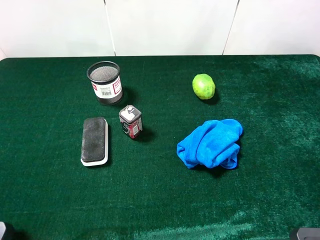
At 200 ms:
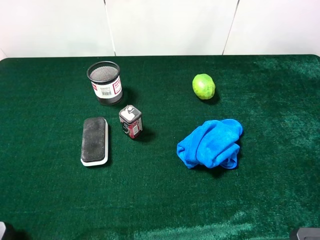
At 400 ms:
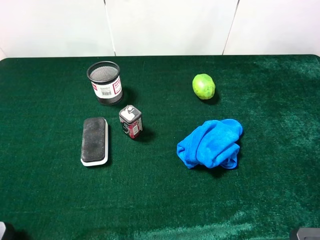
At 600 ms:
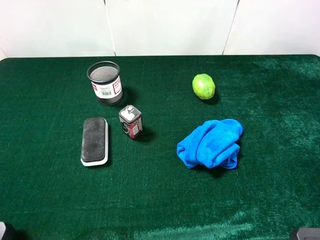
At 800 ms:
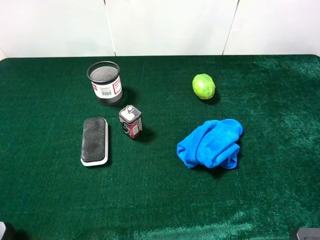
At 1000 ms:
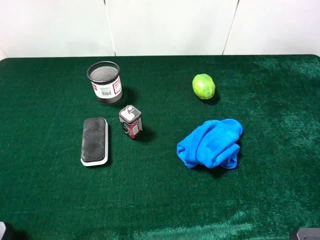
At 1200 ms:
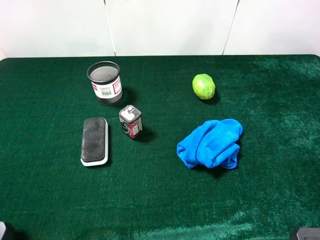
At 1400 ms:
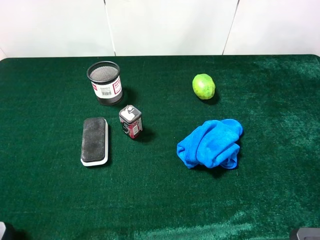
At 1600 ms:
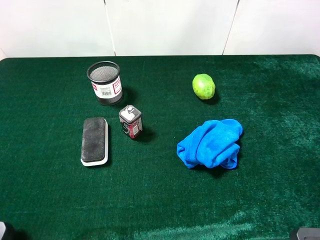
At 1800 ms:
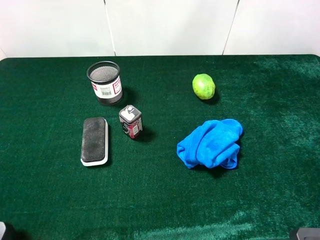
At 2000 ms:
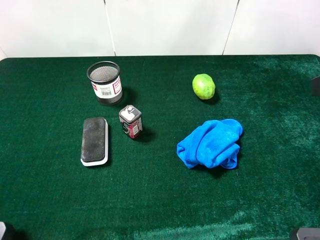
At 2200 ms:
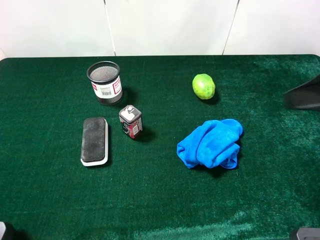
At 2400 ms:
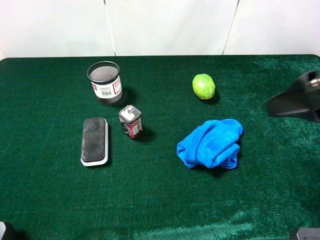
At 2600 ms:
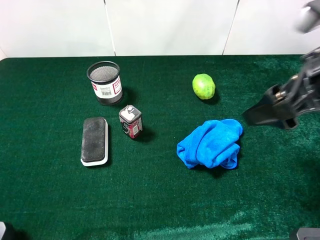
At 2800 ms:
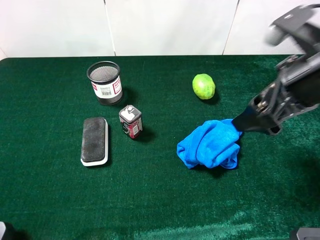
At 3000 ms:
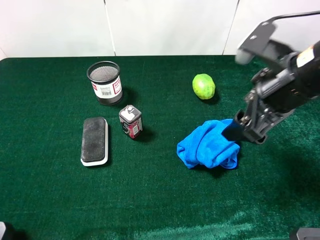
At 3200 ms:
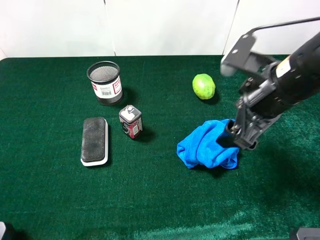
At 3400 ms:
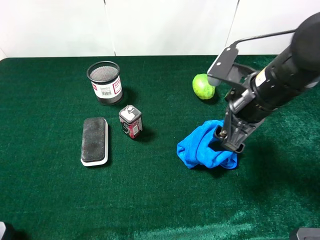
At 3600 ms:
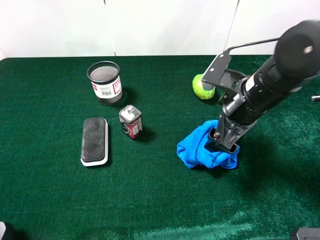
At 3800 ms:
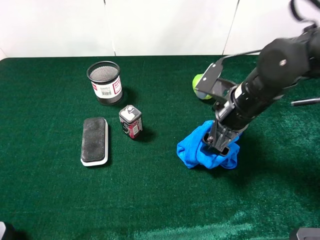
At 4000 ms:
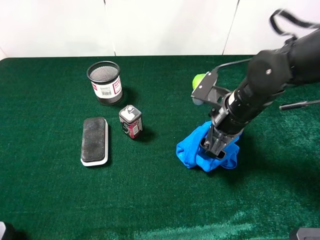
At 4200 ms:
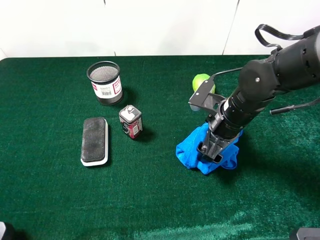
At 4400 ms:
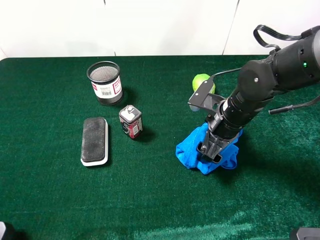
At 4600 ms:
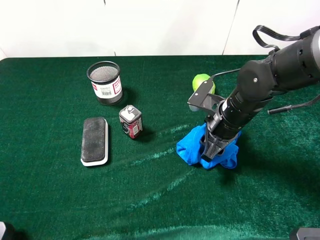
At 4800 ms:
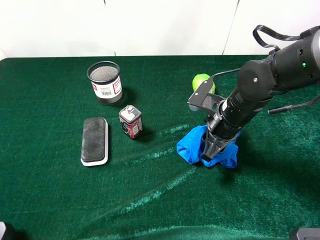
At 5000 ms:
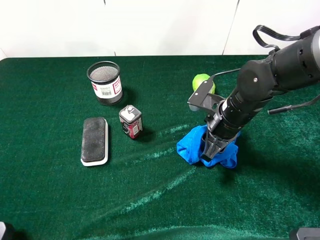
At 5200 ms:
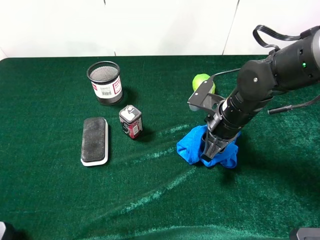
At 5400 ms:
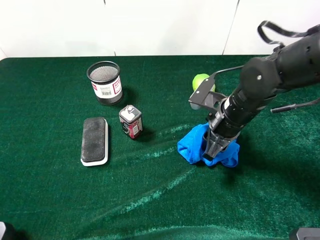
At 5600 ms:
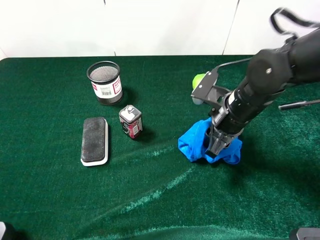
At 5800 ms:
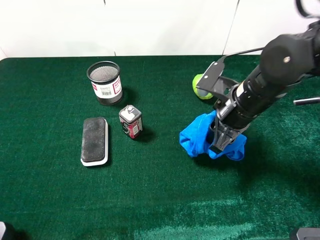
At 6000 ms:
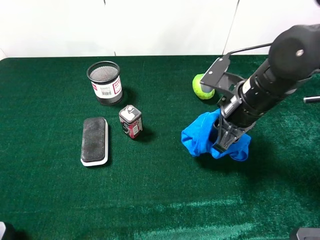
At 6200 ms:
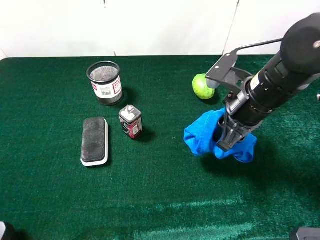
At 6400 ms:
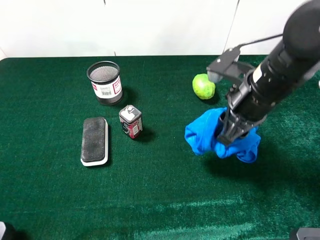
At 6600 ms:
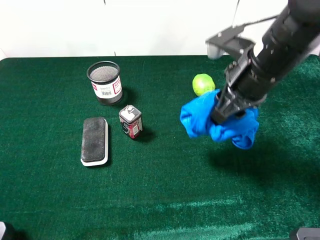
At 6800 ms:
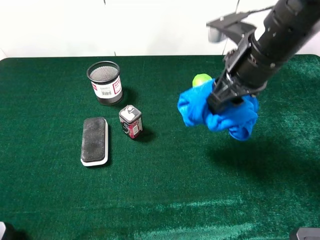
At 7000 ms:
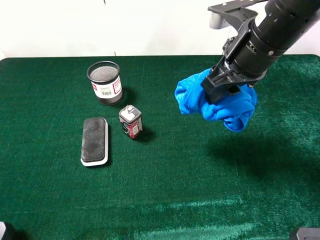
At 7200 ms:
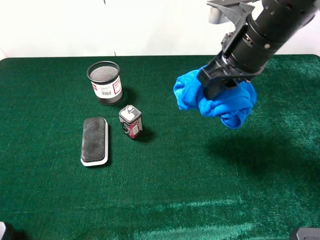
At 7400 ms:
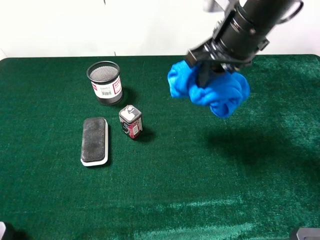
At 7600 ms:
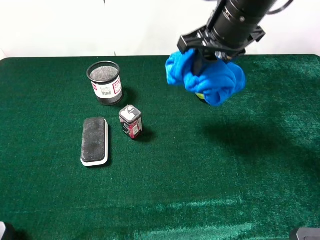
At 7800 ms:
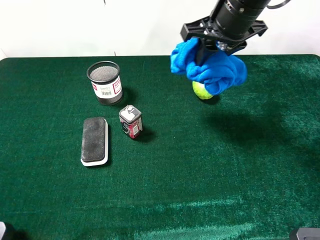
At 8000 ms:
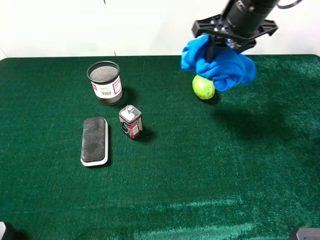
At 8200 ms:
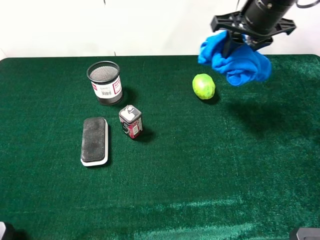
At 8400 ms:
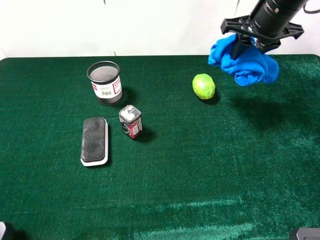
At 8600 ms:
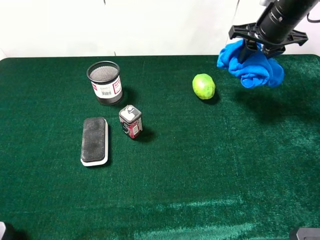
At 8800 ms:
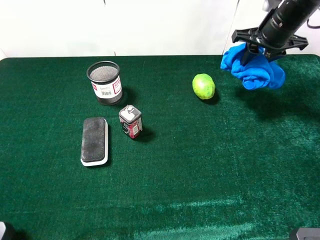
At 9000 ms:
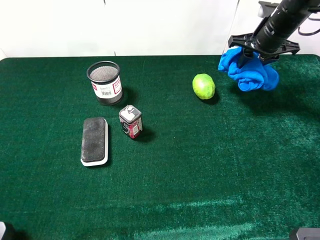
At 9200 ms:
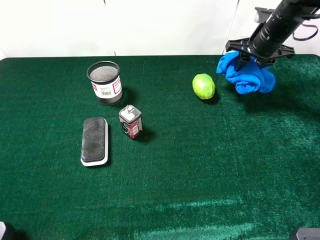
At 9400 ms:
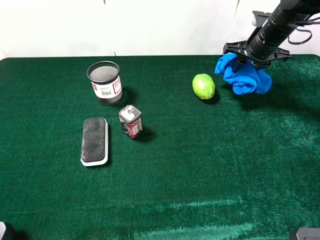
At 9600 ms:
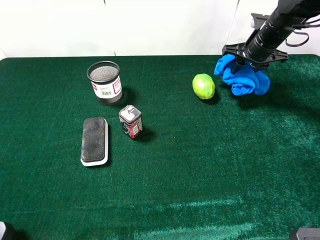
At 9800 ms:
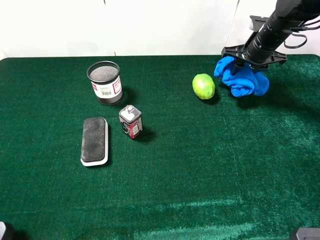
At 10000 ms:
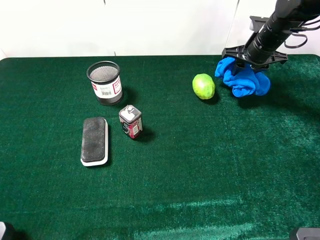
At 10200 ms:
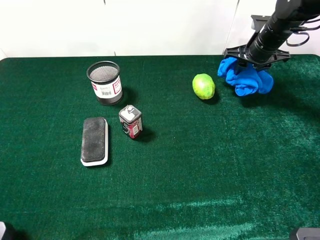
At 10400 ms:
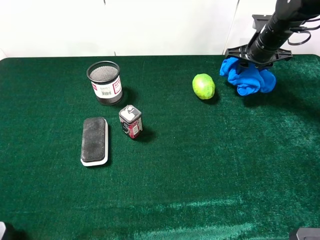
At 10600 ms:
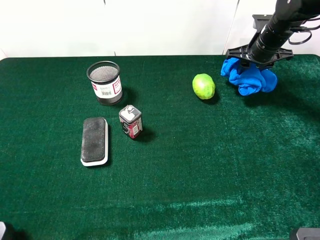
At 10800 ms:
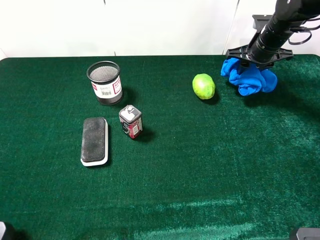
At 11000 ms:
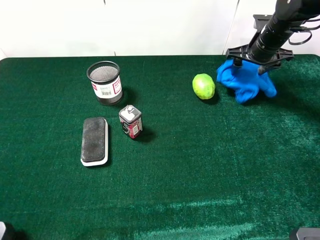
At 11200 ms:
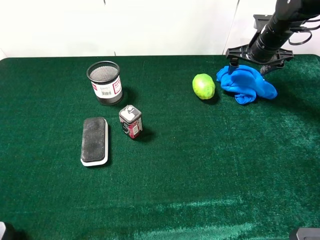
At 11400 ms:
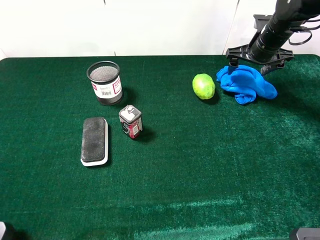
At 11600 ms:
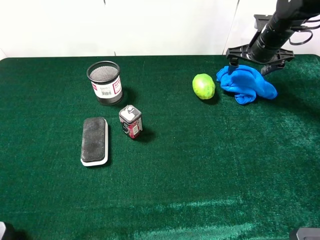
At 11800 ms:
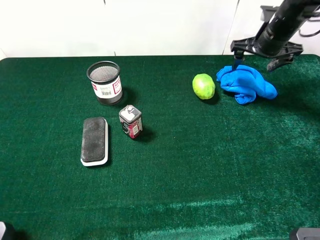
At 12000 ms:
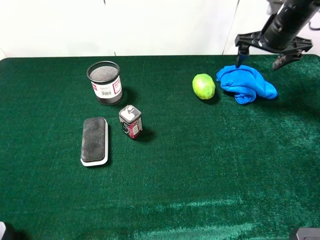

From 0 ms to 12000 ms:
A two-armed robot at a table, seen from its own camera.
Task of the whole recording: the gripper move the object.
Step, from 0 ms to 11800 ms: Place the blue towel on the table with the right gripper.
From 1600 ms to 3000 ms: The right gripper heads forward, to the left and downward, covering approximately 20 cm.
From 3000 ms to 4400 ms: The right gripper heads downward, covering some 15 cm.
From 4400 ms to 6000 ms: The right gripper heads upward, covering approximately 5 cm, and closes its fingers.
From 6000 ms to 7600 ms: The right gripper is displaced upward and forward by approximately 15 cm.
From 7600 ms to 9000 ms: The right gripper goes approximately 20 cm to the right, forward and downward.
From 9000 ms to 10400 ms: The grippers move only a little.
From 10400 ms to 12000 ms: The right gripper heads upward, covering roughly 5 cm, and opens.

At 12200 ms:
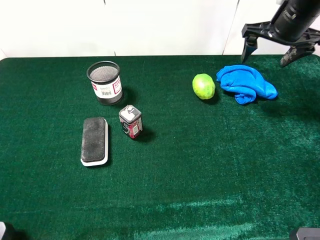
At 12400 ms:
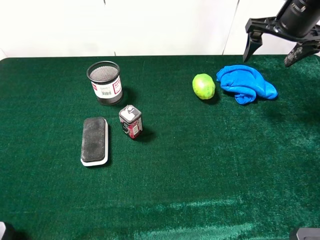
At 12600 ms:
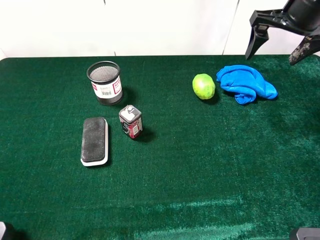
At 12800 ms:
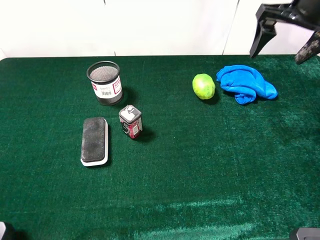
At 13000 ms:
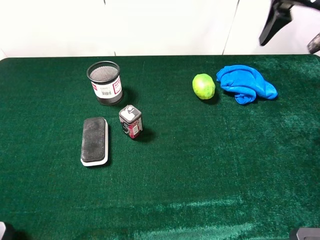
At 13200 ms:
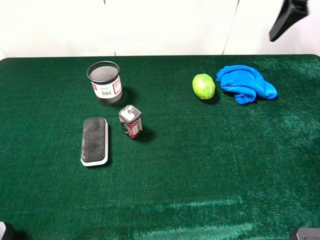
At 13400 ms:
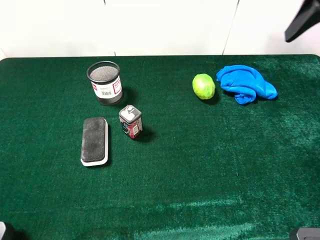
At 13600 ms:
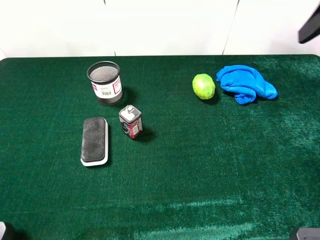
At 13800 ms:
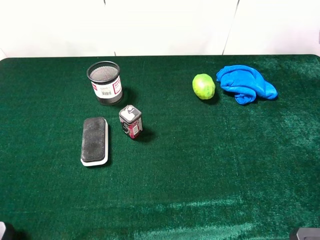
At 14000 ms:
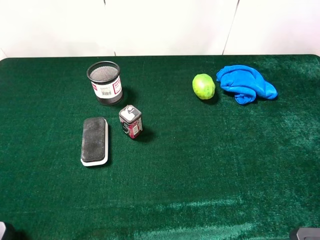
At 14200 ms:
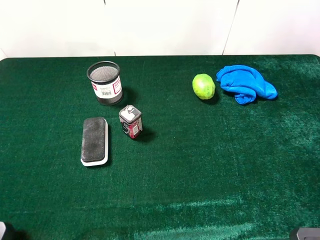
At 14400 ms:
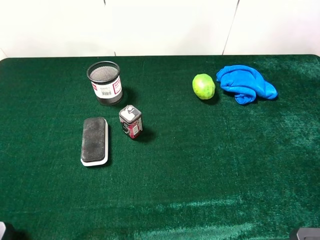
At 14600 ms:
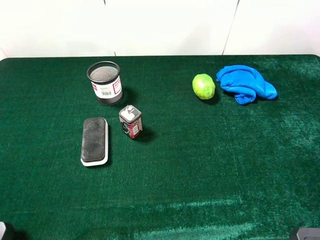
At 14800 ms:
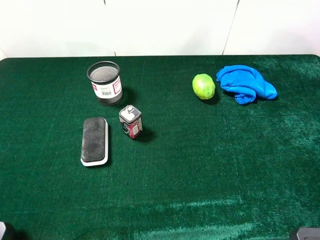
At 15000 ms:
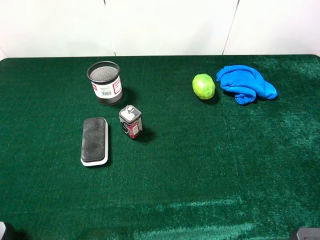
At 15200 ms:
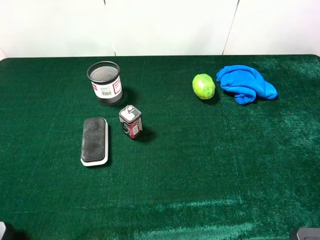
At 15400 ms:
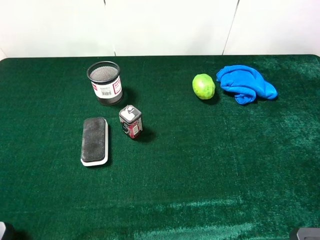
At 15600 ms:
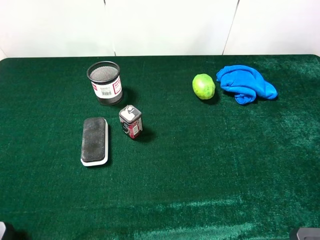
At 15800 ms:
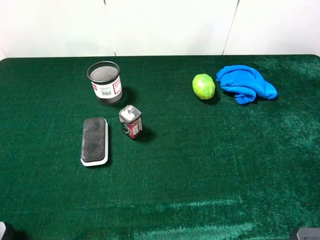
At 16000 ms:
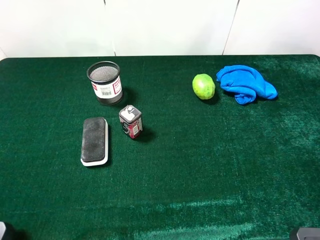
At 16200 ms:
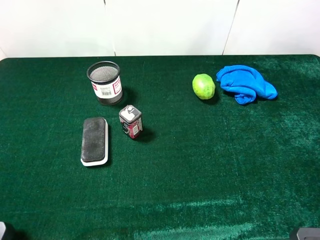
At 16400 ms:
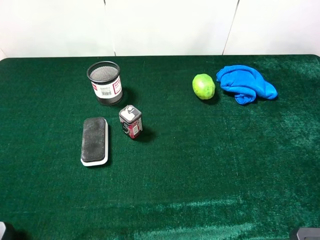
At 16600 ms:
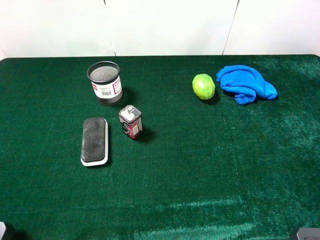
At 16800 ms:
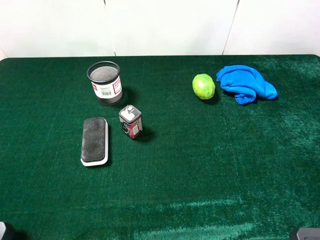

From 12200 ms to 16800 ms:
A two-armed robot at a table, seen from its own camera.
Task of the whole recording: the gripper move the object.
From 12200 ms to 13800 ms: The right gripper goes about 25 cm backward and upward.
From 15200 ms to 16800 ms: The two grippers keep their place.
